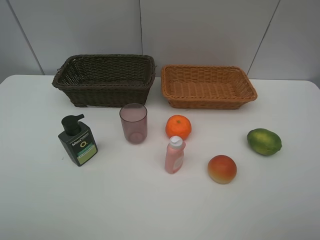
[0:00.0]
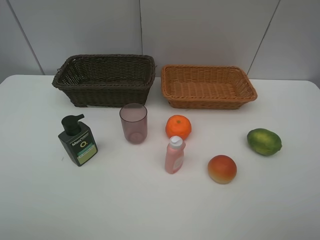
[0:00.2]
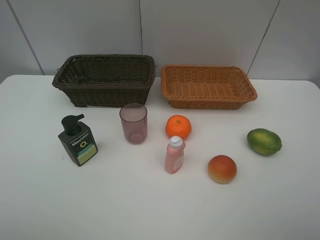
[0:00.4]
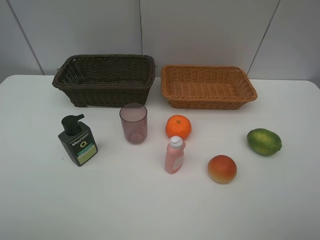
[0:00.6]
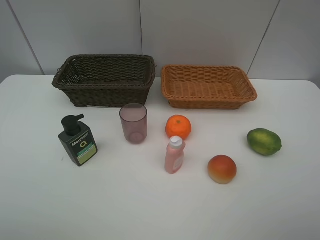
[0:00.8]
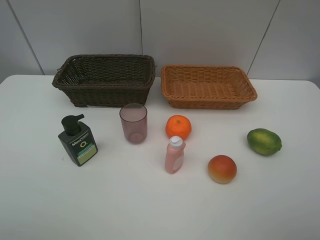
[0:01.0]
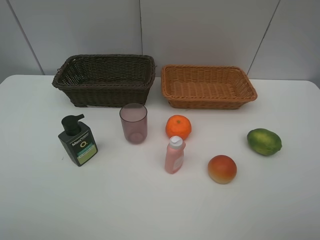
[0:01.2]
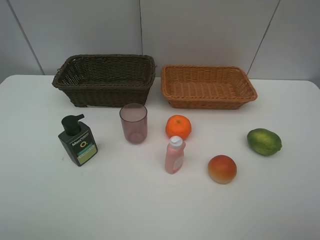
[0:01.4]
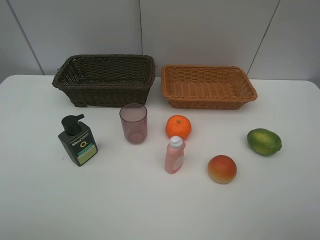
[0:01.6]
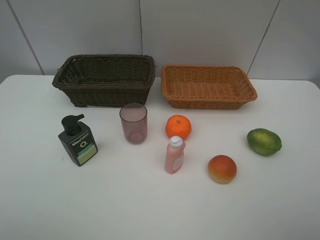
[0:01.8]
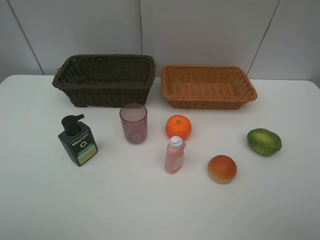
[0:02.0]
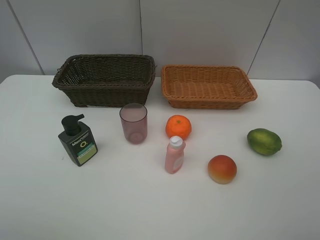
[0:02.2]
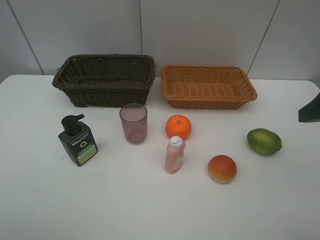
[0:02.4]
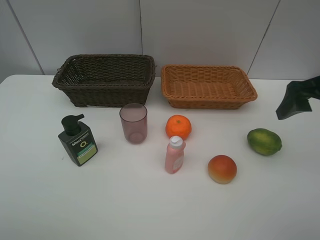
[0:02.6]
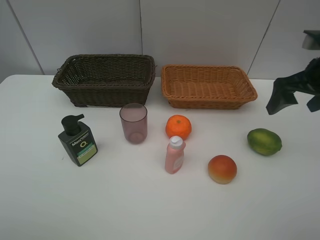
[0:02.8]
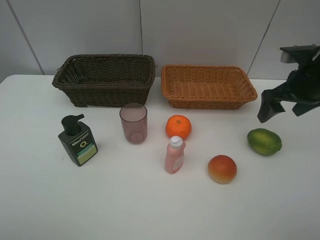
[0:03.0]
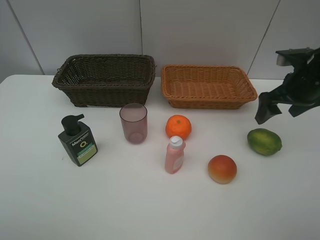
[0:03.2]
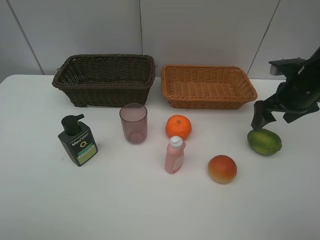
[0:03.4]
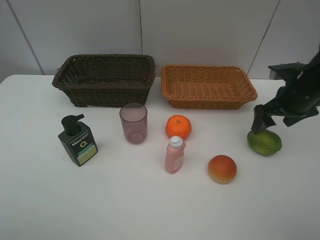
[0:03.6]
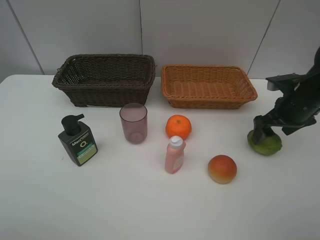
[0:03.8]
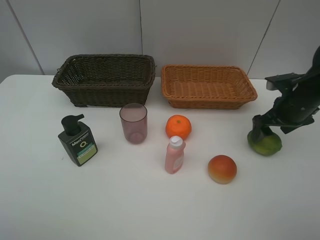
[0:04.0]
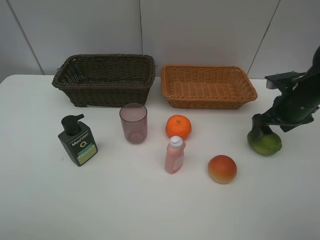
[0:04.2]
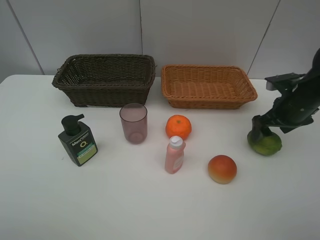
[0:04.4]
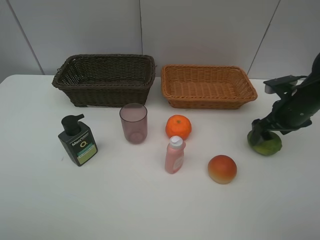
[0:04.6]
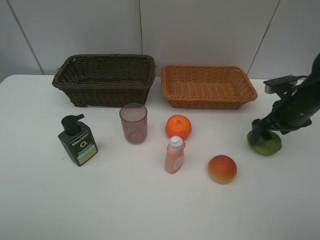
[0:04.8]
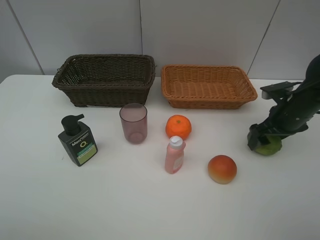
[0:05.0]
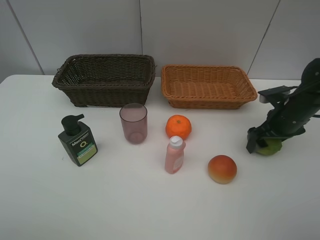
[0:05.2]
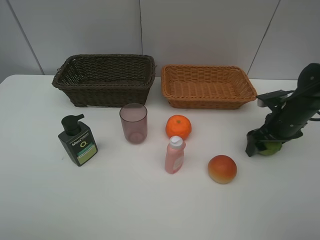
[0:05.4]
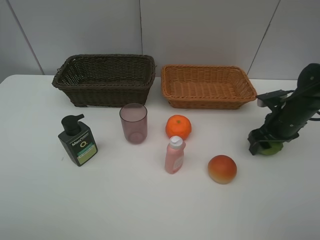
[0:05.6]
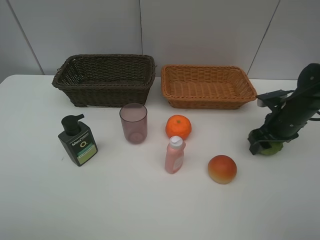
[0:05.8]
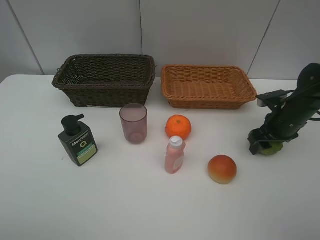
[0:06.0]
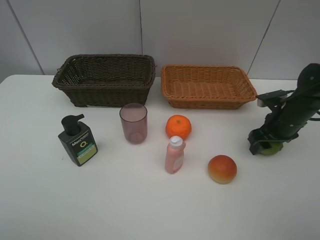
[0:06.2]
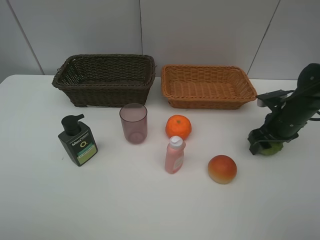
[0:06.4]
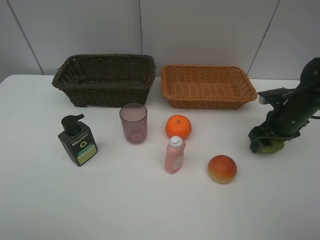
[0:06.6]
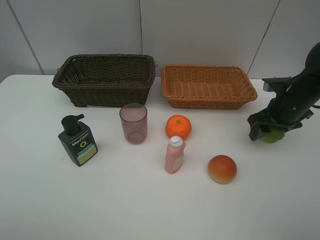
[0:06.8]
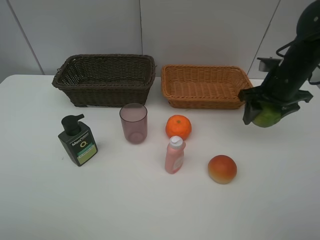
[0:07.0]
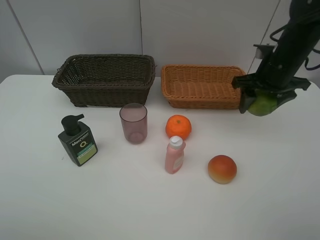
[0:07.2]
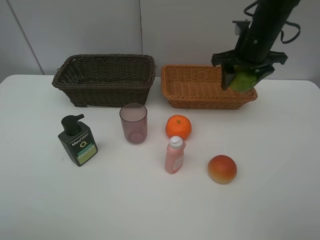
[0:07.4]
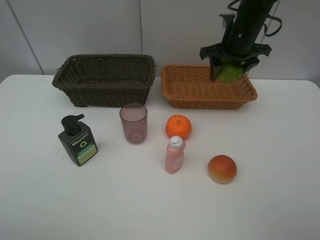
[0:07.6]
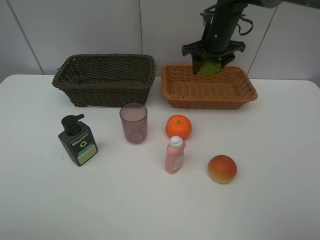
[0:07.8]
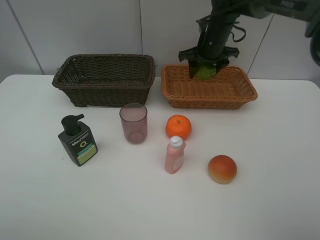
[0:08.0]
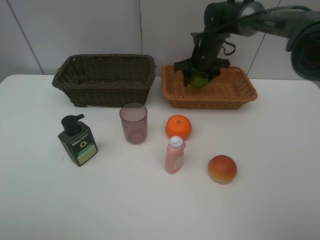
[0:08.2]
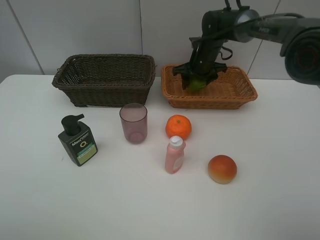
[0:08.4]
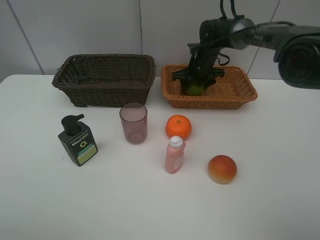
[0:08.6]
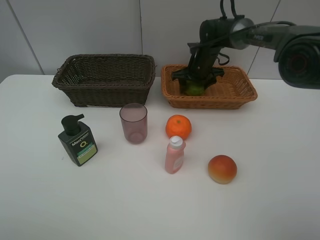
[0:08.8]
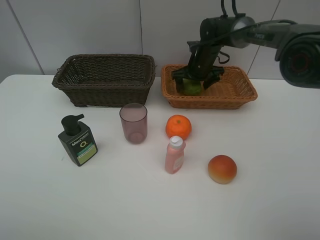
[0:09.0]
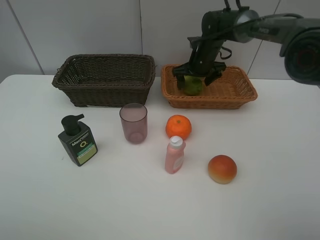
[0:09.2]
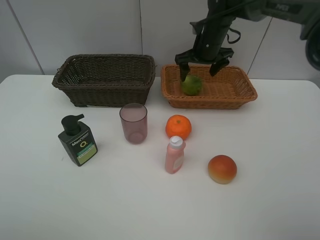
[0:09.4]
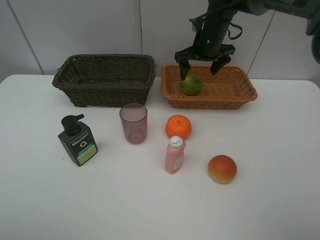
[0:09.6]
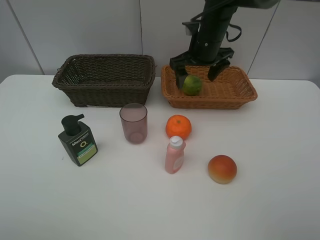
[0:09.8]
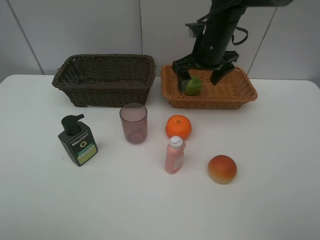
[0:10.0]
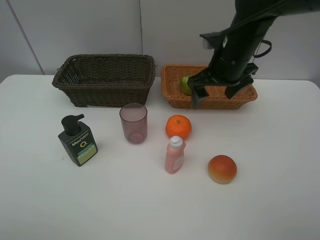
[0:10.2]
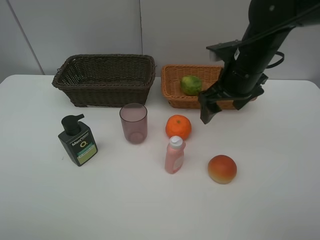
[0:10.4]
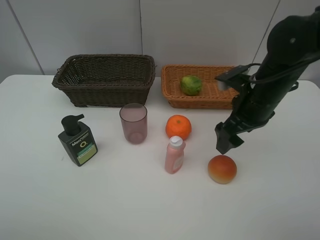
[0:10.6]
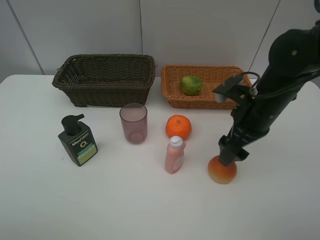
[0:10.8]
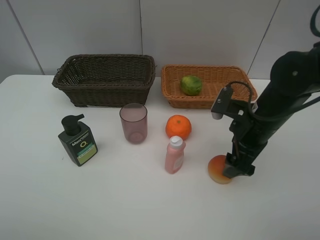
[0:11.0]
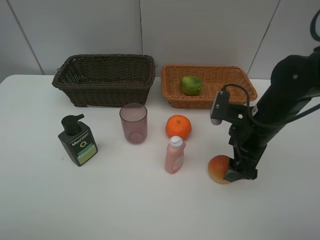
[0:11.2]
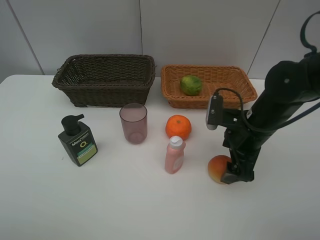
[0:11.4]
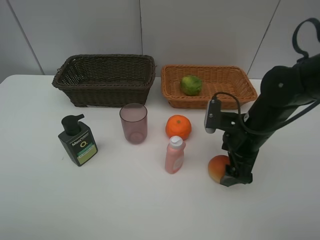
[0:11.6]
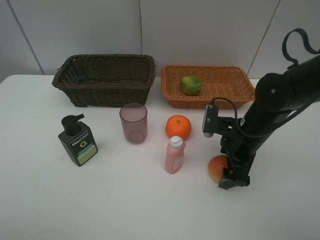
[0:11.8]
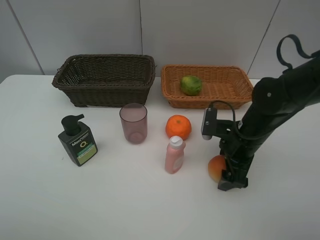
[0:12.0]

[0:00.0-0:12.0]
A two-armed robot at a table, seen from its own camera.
Task of the whole recording: place multiple objects separately in different baskets.
0:00.0 to 0:01.6: Both grippers stay put.
0:01.6 to 0:03.0: The right gripper travels forward by about 30 cm.
0:03.0 to 0:04.4: The right gripper heads downward, covering roughly 5 cm.
0:04.4 to 0:06.0: The right gripper closes up.
0:06.0 to 0:07.6: The right gripper goes roughly 20 cm upward, to the left and forward.
0:07.6 to 0:09.0: The right gripper goes approximately 15 cm downward and forward, and opens up.
0:09.0 to 0:10.4: The right gripper travels backward and upward by approximately 20 cm.
0:10.4 to 0:12.0: The right gripper goes about 15 cm downward and backward.

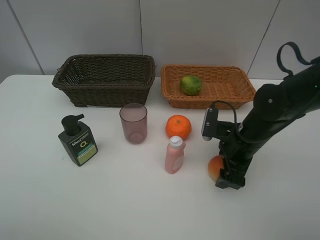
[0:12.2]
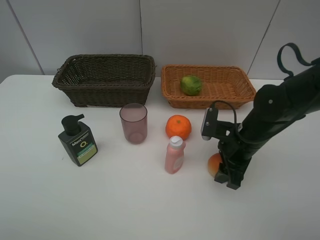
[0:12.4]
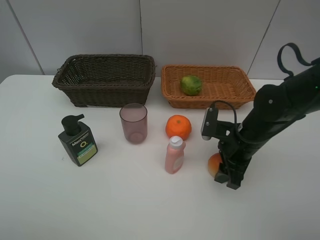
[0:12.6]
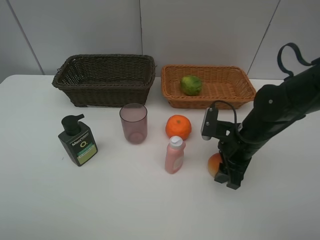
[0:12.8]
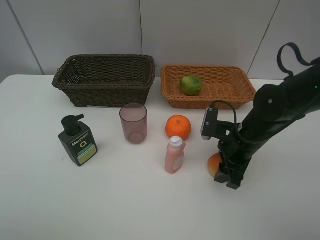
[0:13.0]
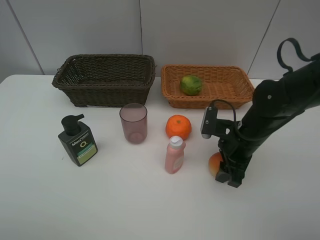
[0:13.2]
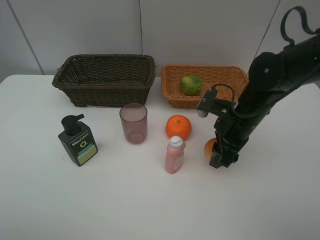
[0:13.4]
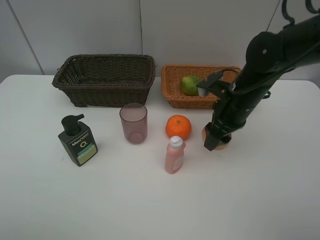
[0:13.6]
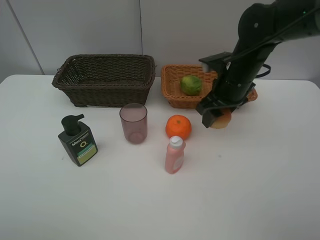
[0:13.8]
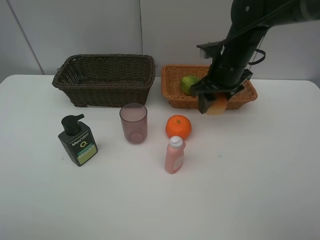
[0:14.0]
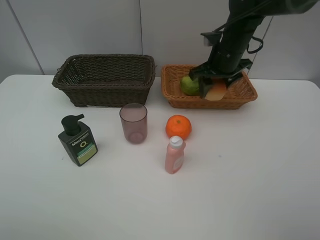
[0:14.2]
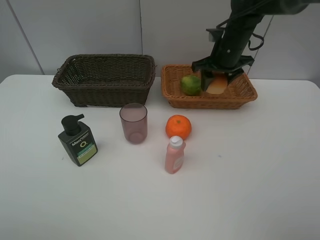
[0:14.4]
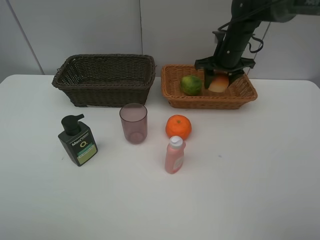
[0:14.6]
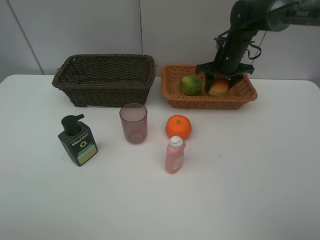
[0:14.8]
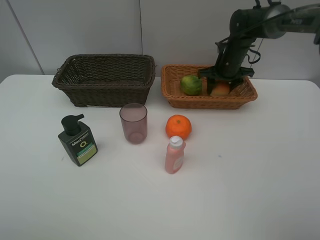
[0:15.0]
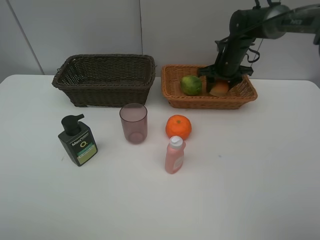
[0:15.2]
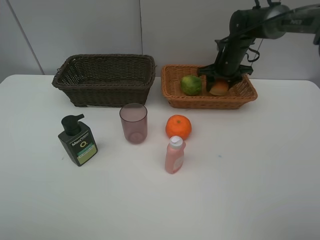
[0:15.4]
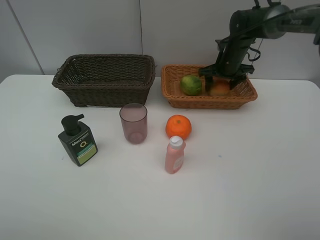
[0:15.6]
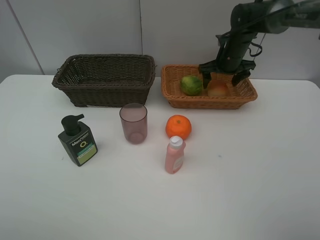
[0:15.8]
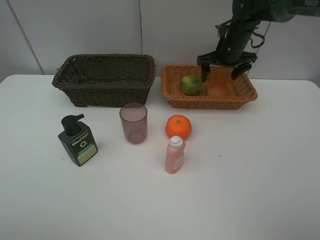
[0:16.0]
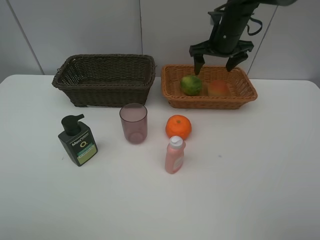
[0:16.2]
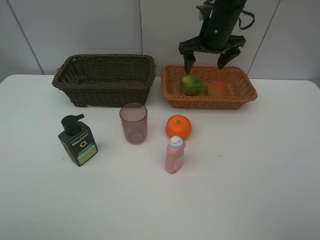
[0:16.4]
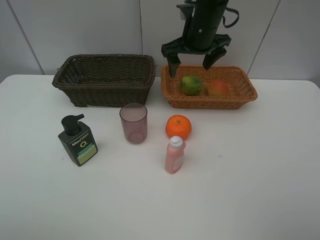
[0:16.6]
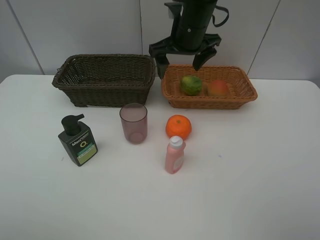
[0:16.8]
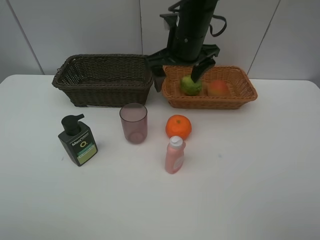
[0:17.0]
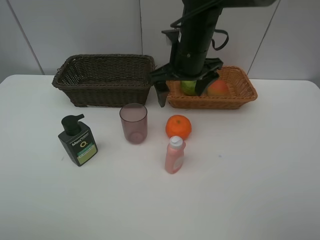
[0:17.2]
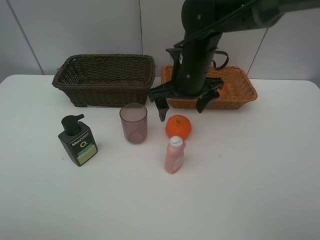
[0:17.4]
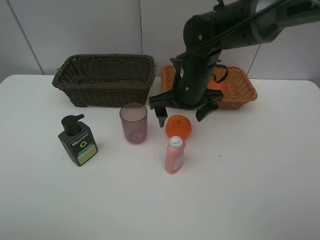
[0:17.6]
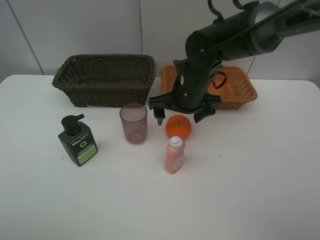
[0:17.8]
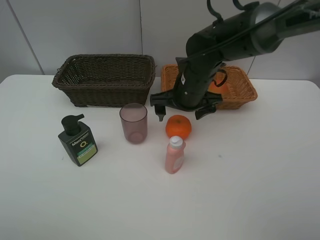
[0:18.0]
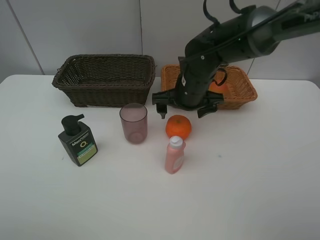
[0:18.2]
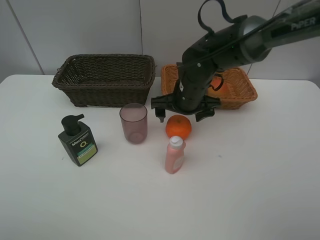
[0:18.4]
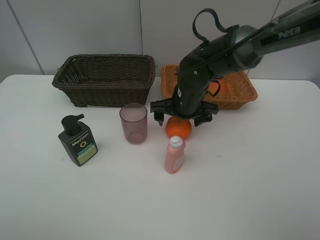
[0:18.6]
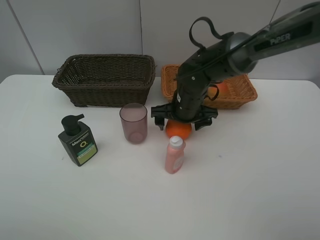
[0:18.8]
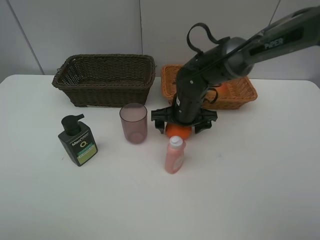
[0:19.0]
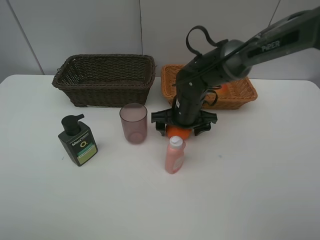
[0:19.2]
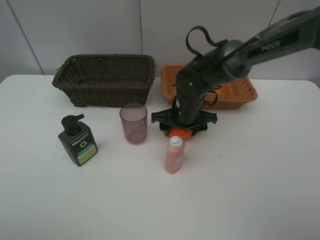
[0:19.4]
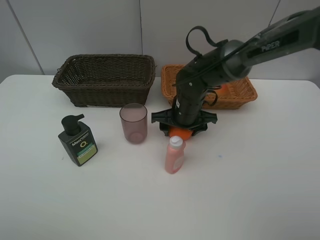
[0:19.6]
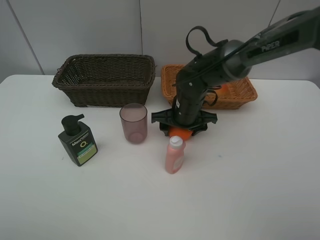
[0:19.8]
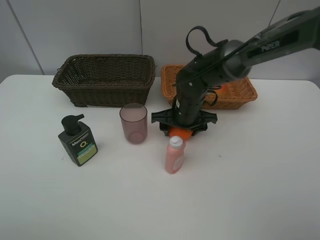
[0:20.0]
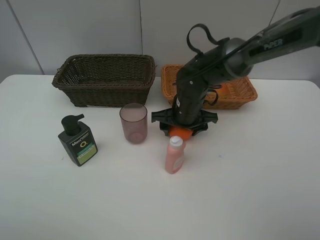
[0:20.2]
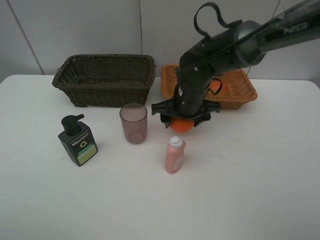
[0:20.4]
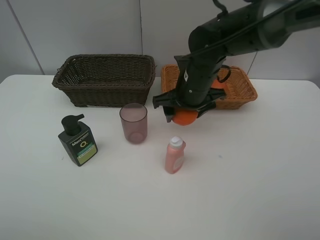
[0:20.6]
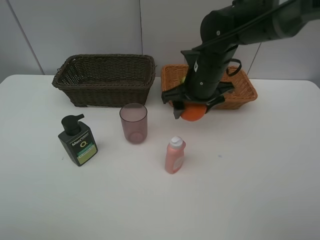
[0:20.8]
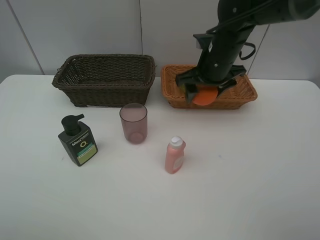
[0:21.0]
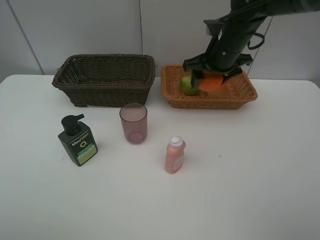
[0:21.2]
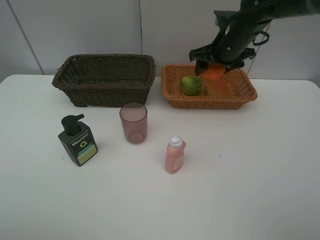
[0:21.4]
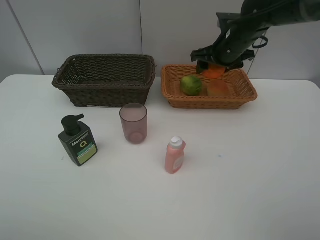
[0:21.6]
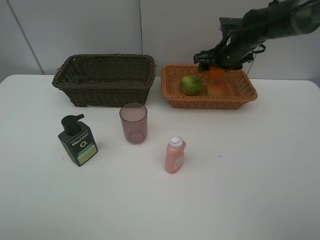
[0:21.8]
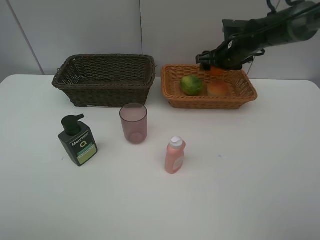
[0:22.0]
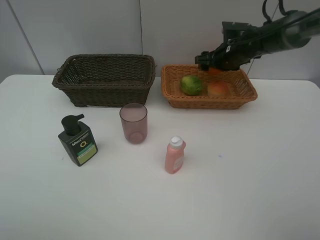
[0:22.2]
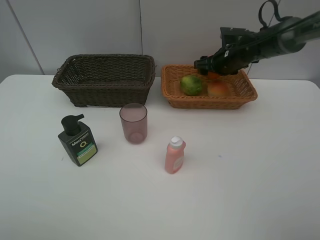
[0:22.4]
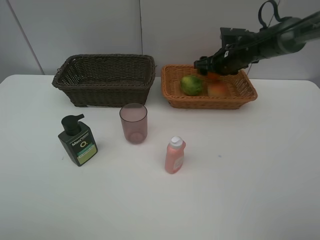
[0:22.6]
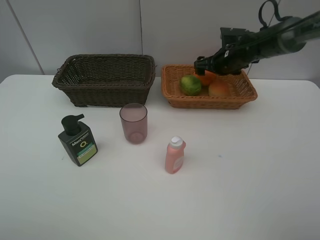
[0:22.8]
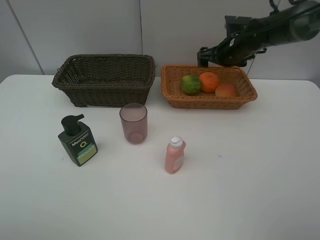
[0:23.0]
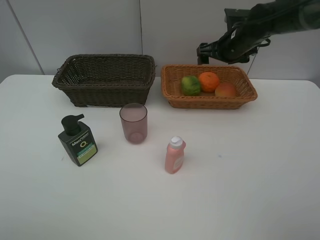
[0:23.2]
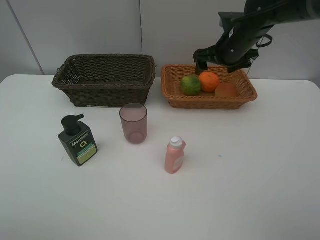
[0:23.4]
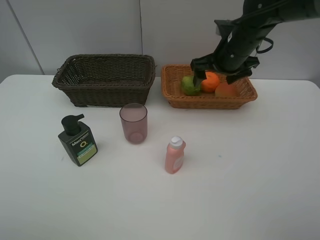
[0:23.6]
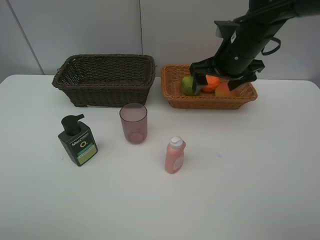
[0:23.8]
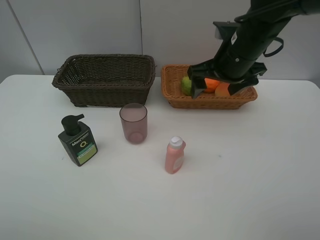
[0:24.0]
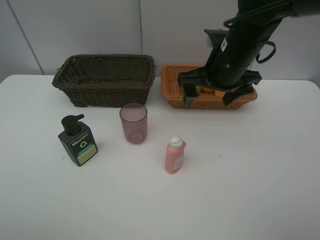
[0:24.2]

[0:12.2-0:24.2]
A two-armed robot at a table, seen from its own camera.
Task of the whole recording: place multiple objects separately in different baskets.
0:12.2 to 0:13.8: The right gripper is displaced upward and forward by some 15 cm, and closes.
0:13.8 to 0:15.2: The right gripper moves forward, roughly 15 cm.
0:15.2 to 0:16.6: The right gripper moves to the left, upward and backward, approximately 15 cm, and opens up.
0:16.6 to 0:18.2: The right gripper shifts roughly 10 cm downward and backward.
0:18.2 to 0:19.8: The right gripper travels downward by roughly 5 cm, and closes up.
0:19.8 to 0:21.2: The right gripper goes roughly 15 cm upward and to the right.
0:21.2 to 0:22.6: The right gripper goes some 15 cm forward, downward and to the right.
0:22.6 to 0:24.2: The right gripper travels backward, upward and to the left by some 20 cm.
